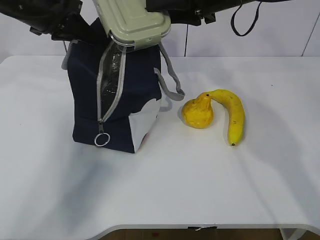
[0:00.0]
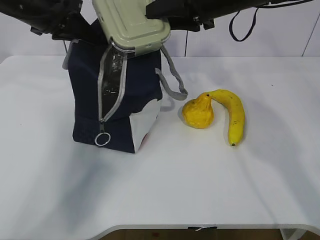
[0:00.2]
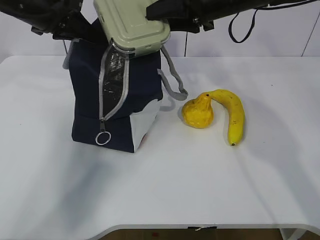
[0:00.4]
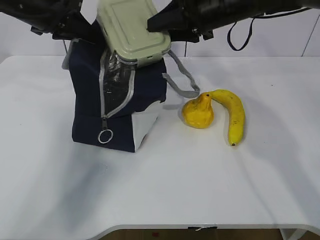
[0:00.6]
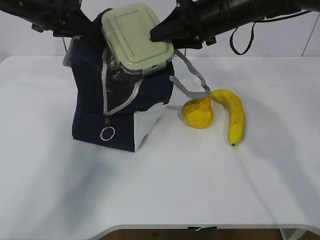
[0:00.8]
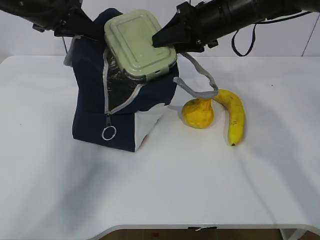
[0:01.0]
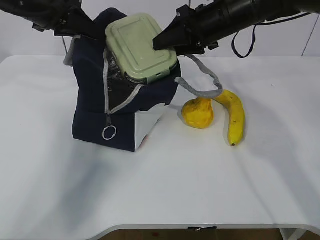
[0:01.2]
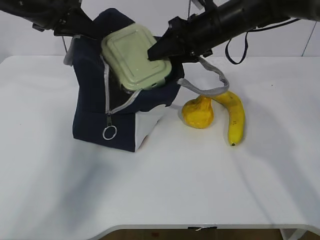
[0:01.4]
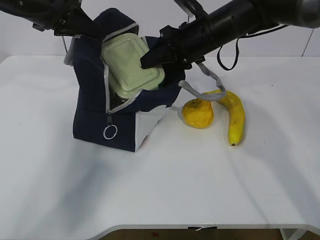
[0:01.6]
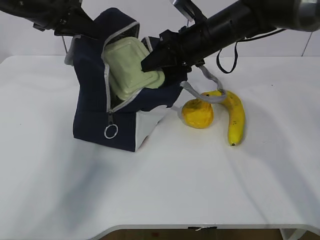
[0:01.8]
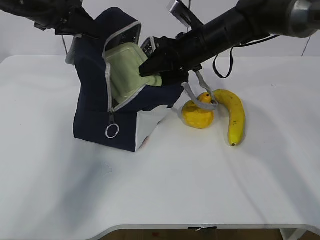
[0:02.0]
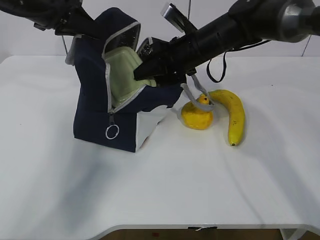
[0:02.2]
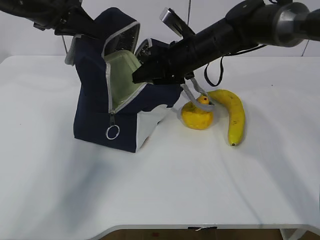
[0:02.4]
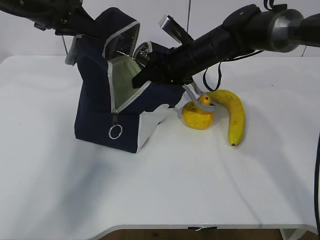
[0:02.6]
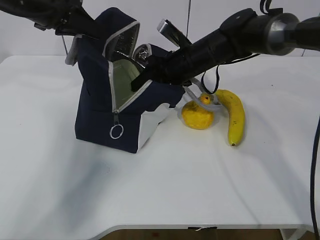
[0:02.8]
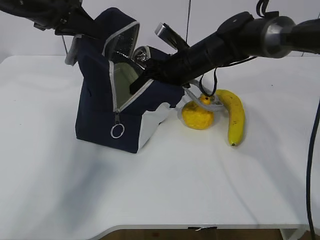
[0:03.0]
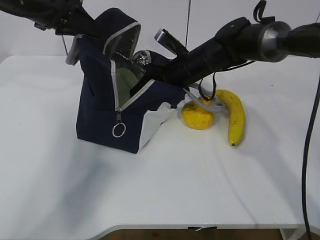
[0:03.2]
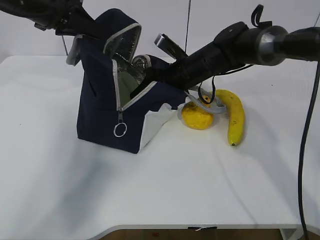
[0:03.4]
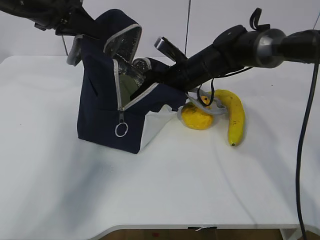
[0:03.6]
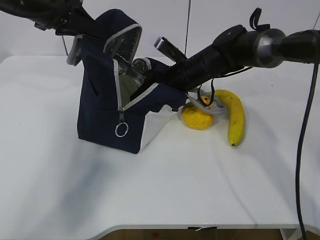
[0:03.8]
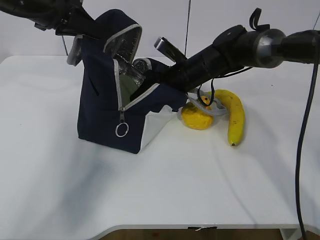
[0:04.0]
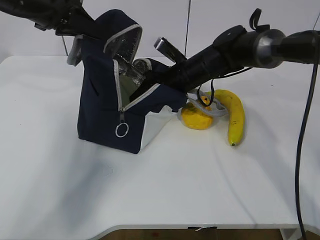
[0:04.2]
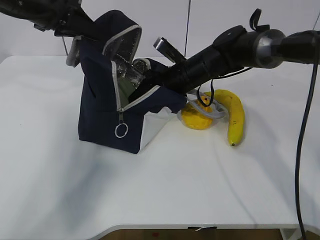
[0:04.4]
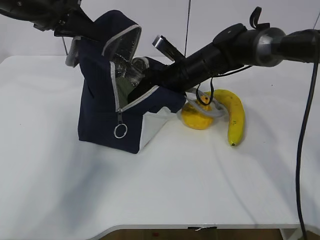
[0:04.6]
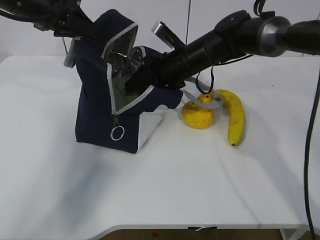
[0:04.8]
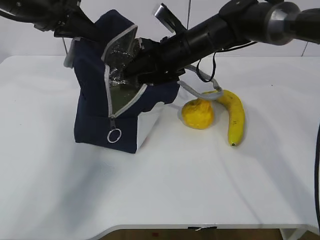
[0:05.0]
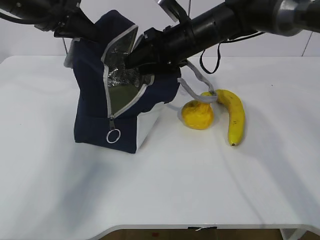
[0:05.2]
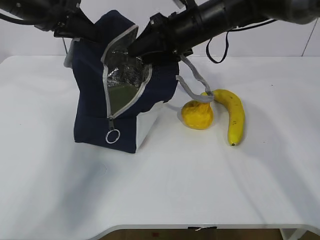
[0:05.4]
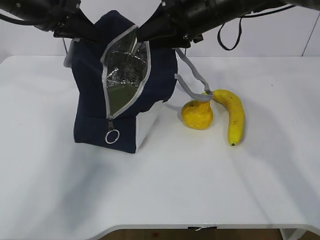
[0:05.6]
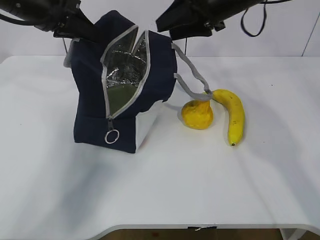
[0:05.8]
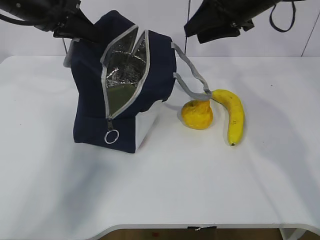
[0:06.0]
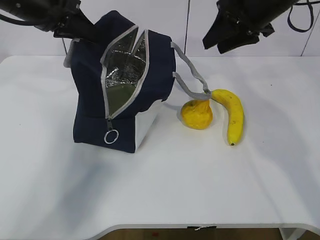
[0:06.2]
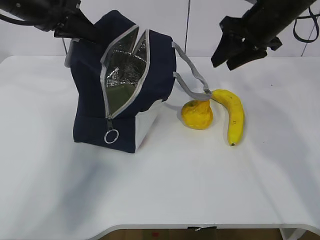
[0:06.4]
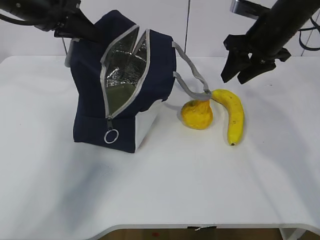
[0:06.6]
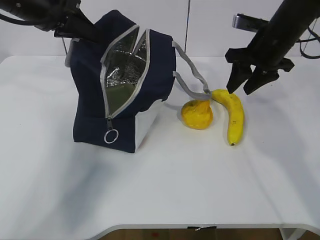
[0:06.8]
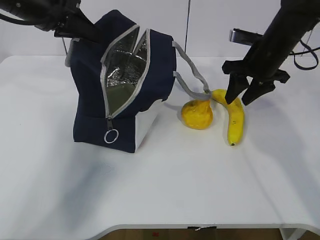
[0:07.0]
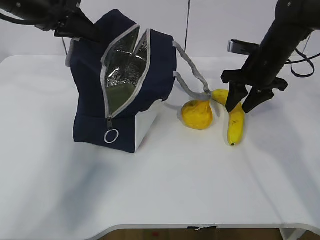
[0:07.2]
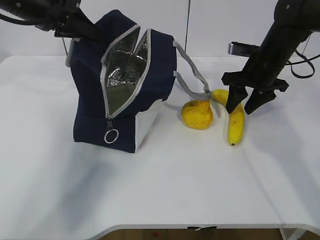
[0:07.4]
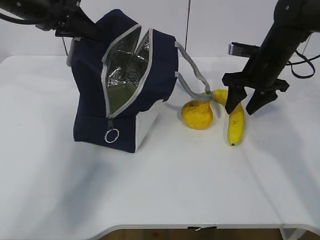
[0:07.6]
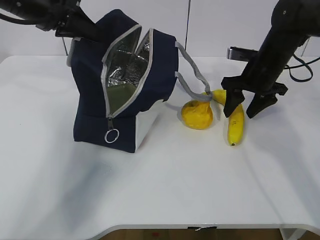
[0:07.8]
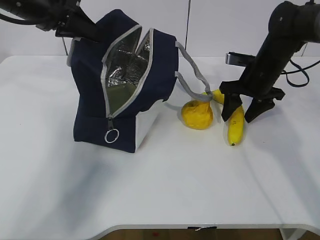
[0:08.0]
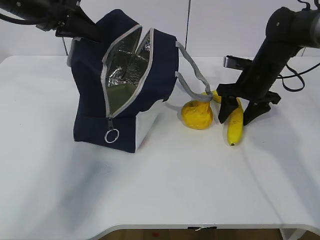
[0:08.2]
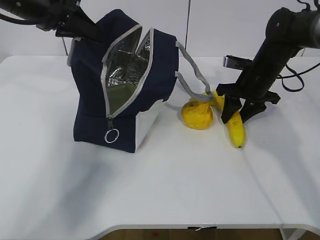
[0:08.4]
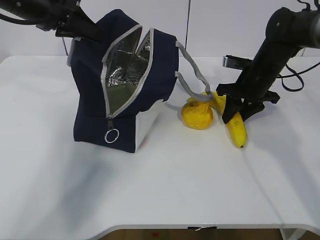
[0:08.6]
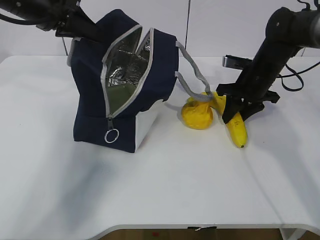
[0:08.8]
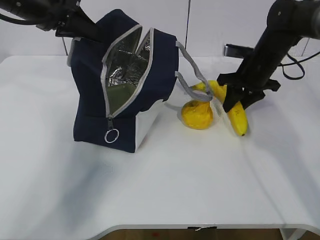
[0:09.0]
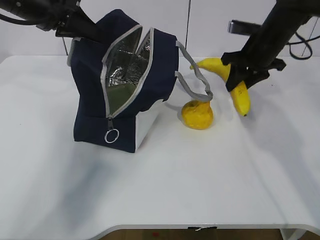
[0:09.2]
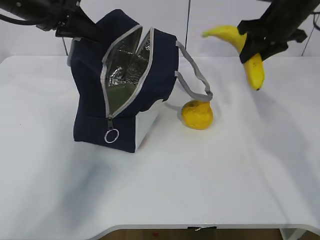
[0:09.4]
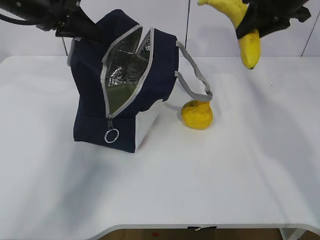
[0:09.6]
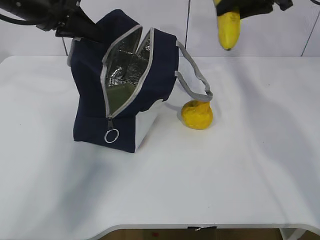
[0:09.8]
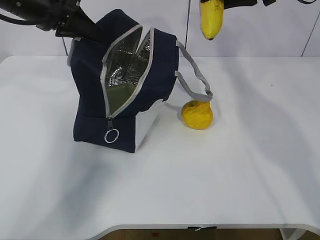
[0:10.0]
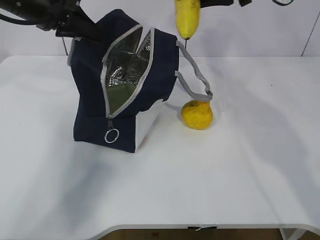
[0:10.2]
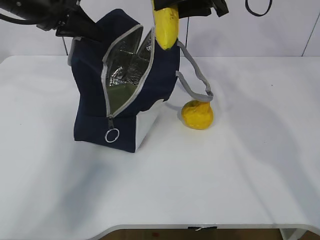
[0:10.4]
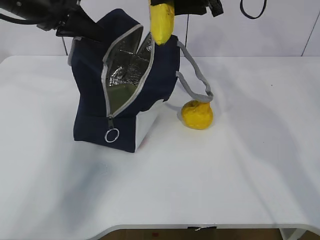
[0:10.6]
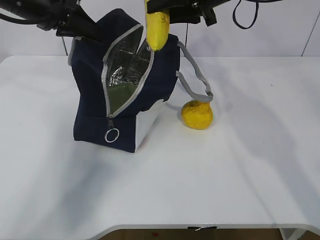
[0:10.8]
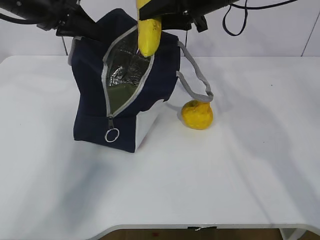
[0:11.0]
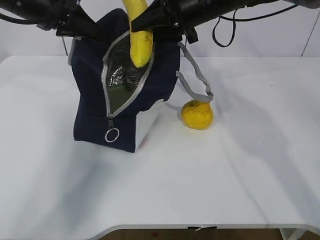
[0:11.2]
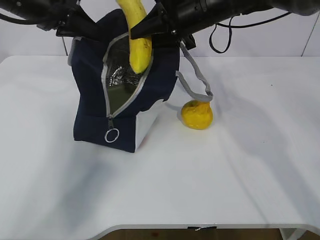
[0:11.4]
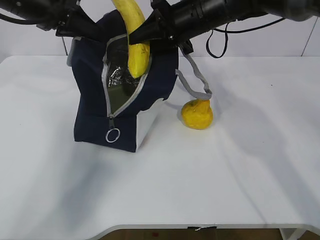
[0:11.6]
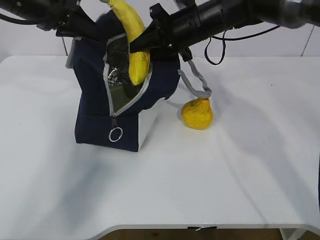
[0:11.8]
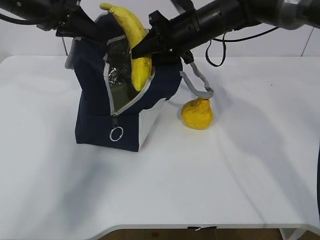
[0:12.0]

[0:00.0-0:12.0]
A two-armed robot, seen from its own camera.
Step, 0:00.0 to 0:03.2: Grab the banana with your right hand.
Step, 0:03.4 to 0:07.4: Place it into the bag with your right hand.
0:00.0 to 0:01.6: The right gripper moves downward, about 5 cm.
0:01.6 to 0:03.0: The right gripper shifts approximately 5 cm downward.
0:03.0 to 0:04.4: There are only small adjustments of the grippers.
0:04.4 to 0:06.0: The right gripper heads upward and to the right, covering some 20 cm.
0:06.0 to 0:07.6: The right gripper is displaced downward by about 15 cm.
0:07.6 to 0:09.0: The right gripper closes its fingers.
0:09.0 to 0:10.4: The right gripper moves upward and to the left, approximately 20 cm.
0:10.4 to 0:12.0: The right gripper moves downward, about 10 cm.

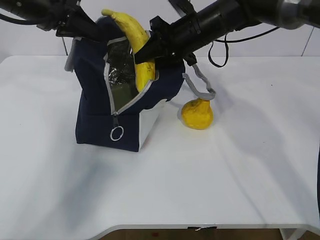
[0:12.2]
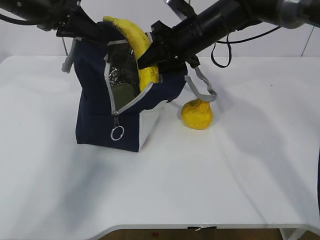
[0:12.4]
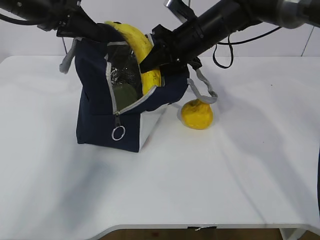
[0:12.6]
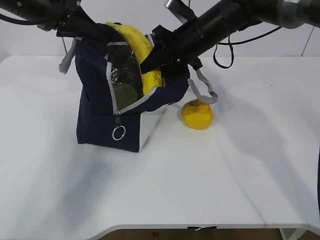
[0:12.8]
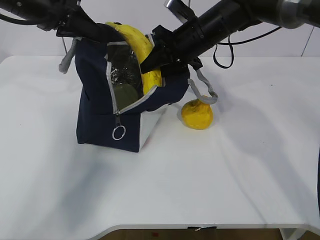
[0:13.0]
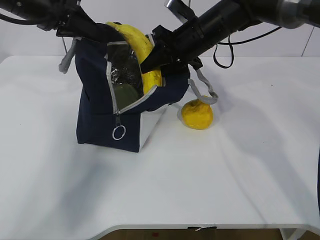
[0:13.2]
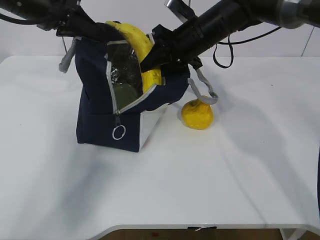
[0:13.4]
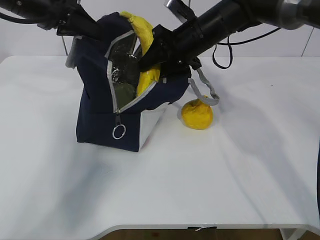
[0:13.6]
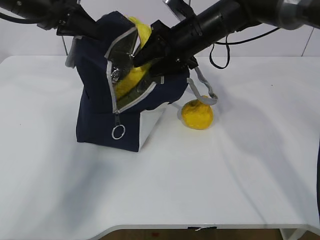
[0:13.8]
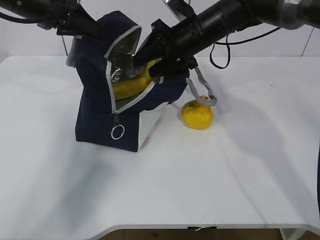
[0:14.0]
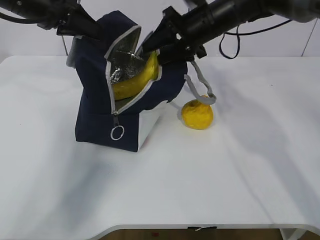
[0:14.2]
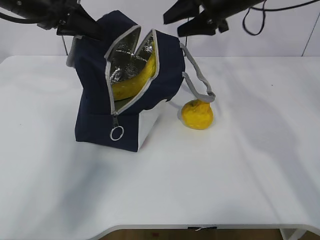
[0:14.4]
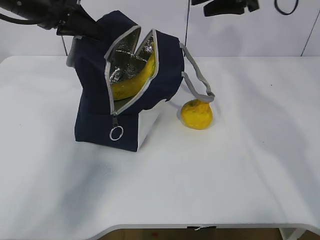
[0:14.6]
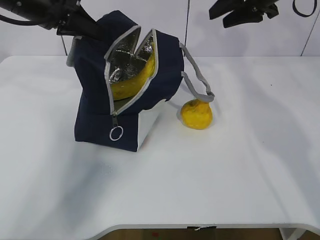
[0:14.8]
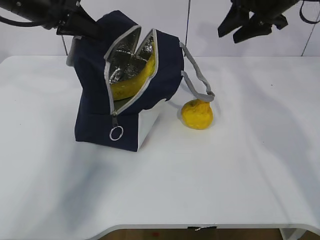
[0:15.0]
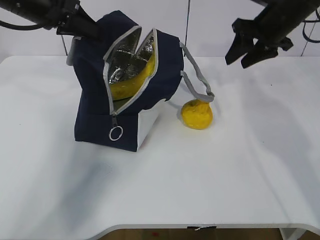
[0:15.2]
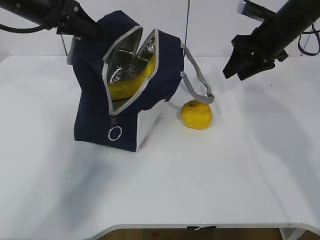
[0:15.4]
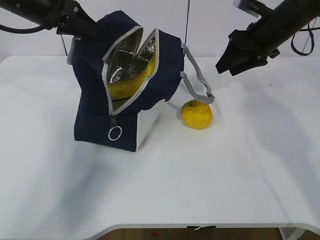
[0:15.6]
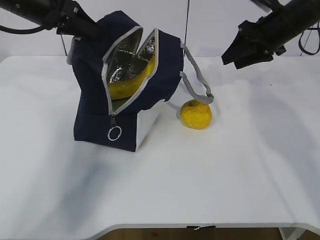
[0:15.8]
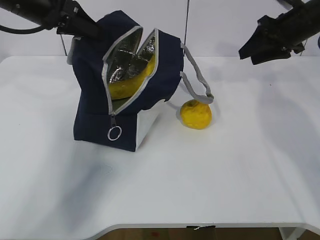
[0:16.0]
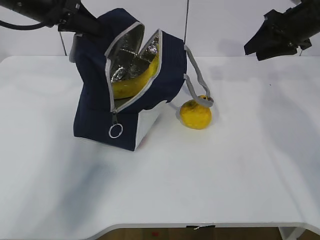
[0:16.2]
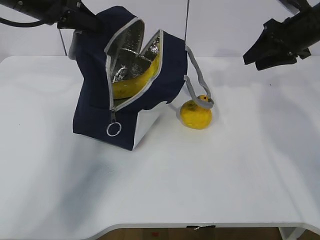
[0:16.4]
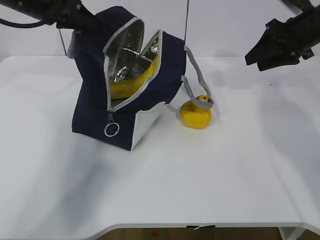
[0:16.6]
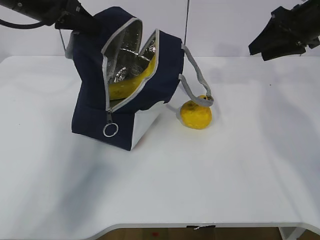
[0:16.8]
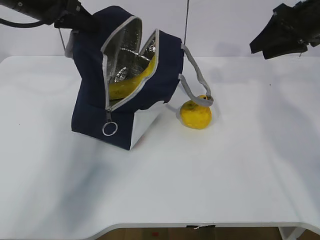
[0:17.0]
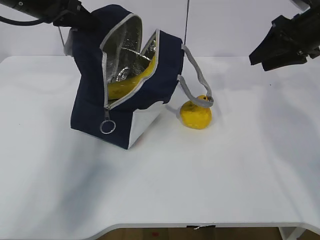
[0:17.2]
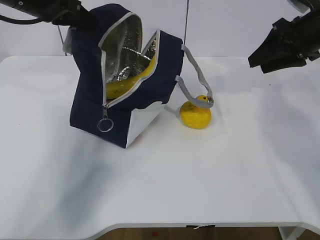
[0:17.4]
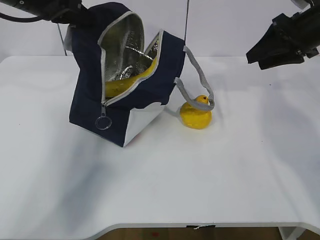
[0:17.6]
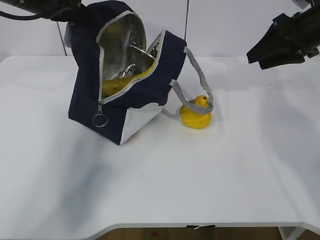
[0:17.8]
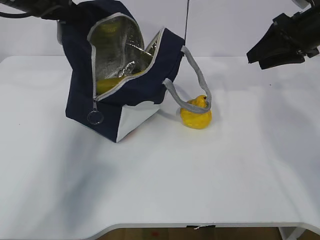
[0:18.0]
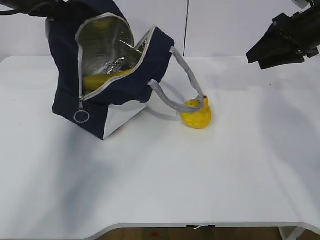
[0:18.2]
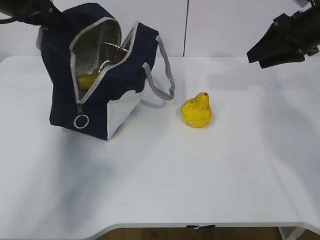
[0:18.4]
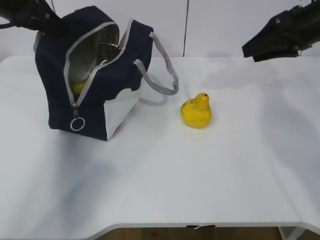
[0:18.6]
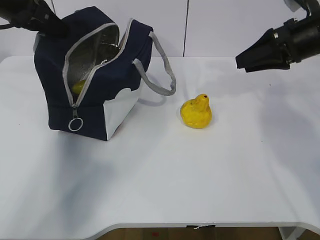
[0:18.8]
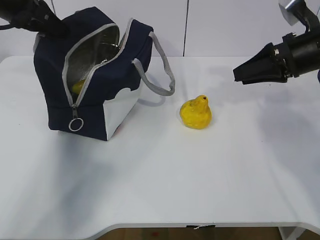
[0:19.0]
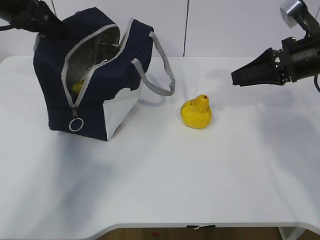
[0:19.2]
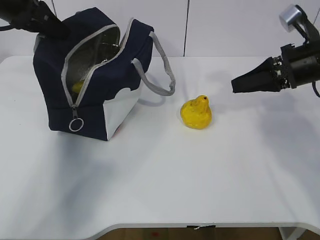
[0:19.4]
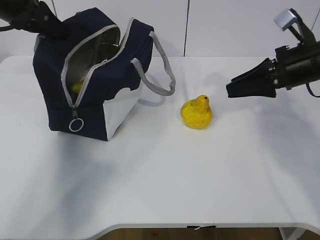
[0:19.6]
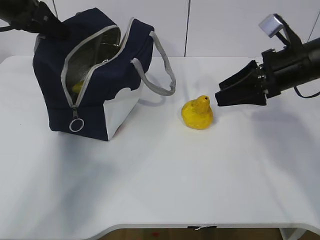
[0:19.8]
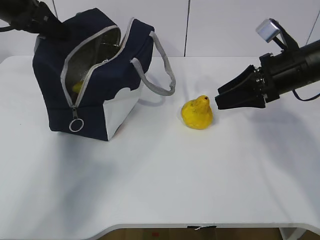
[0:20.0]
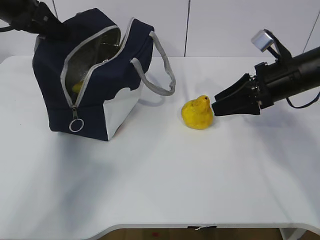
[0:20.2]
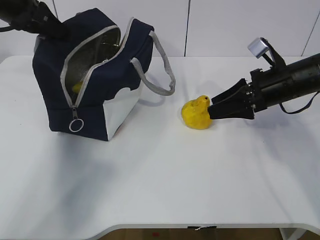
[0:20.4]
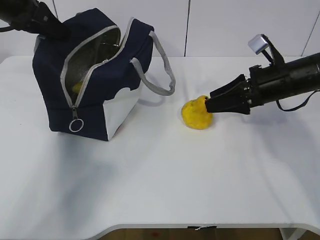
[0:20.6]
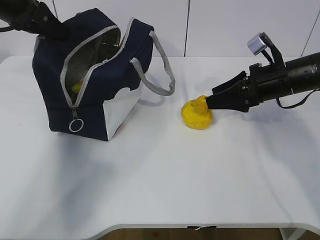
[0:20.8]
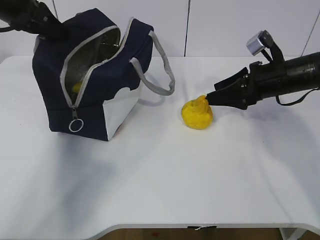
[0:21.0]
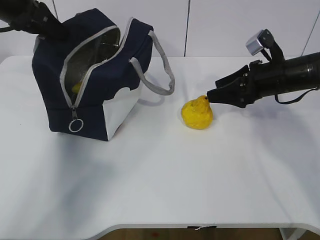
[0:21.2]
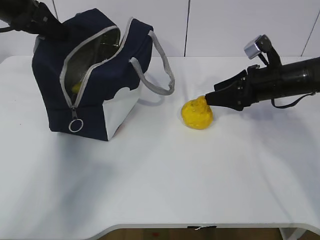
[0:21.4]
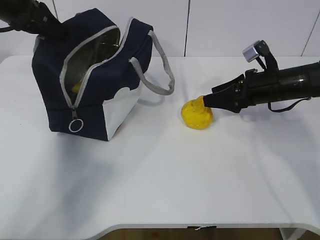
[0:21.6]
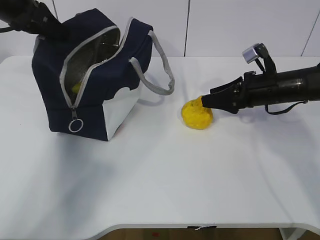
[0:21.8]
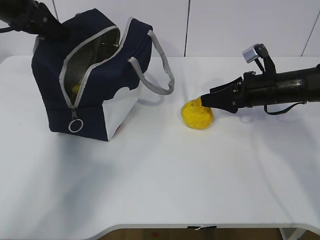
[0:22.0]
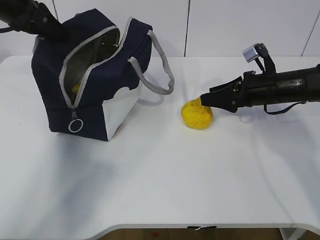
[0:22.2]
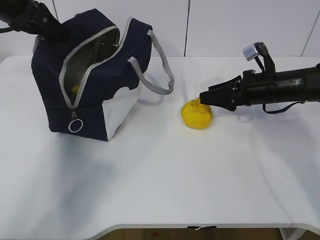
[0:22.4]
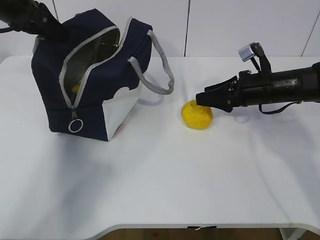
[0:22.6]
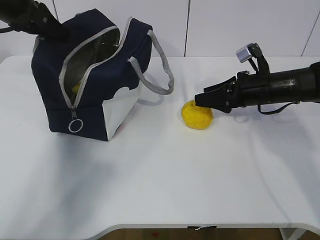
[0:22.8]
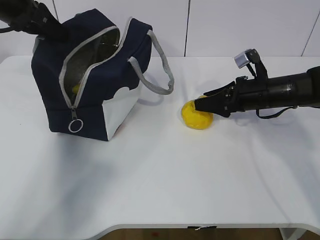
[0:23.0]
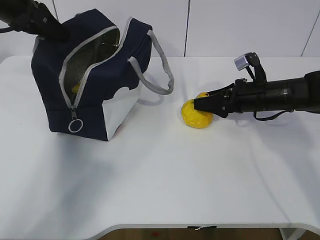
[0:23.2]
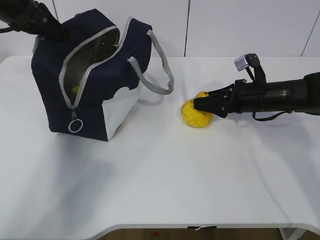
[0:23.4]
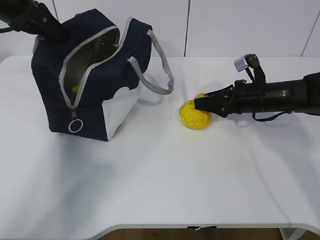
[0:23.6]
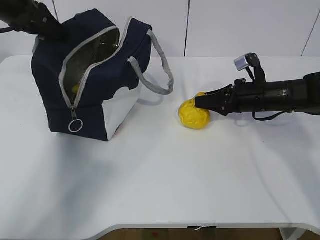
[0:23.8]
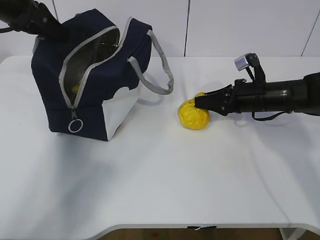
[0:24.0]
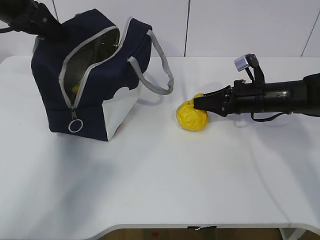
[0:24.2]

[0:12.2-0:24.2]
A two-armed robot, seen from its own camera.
Step, 0:12.2 to 0:15.8: Grab the pear with your right hand.
Step, 0:16.0 to 0:18.4: Secure the lunch bag with your left hand.
Step, 0:18.6 to 0:20.6: Grab the lunch bag with your right hand.
Step, 0:20.8 to 0:24.0: Move the lunch bag to the right.
0:12.2 to 0:13.8: The right gripper opens up.
0:13.8 to 0:15.2: The right gripper travels to the right by some 15 cm.
0:15.2 to 0:16.6: The right gripper is displaced to the right by approximately 5 cm.
0:16.6 to 0:18.2: The grippers make only small movements.
0:18.2 to 0:19.8: The right gripper travels to the left and downward by roughly 10 cm.
0:19.8 to 0:21.2: The right gripper moves some 5 cm.
0:21.2 to 0:22.6: The grippers make only small movements.
0:22.6 to 0:24.2: The right gripper closes.
